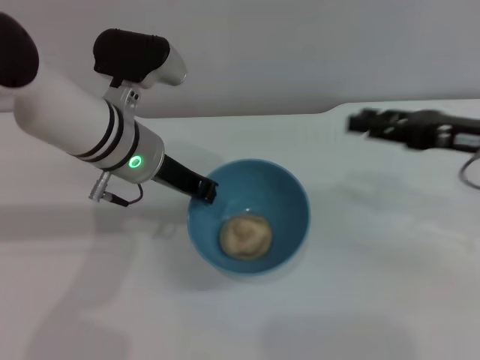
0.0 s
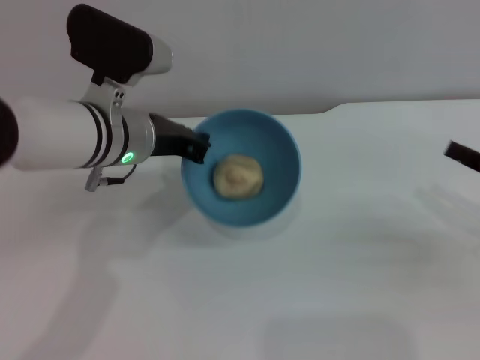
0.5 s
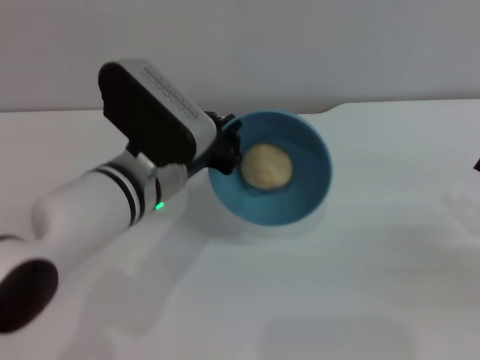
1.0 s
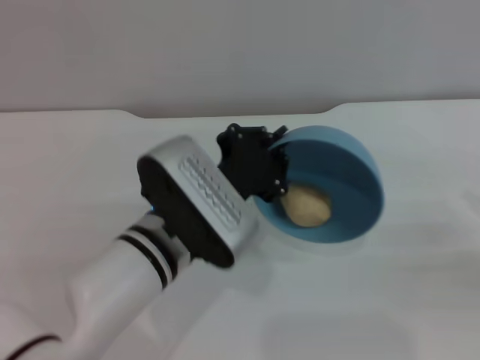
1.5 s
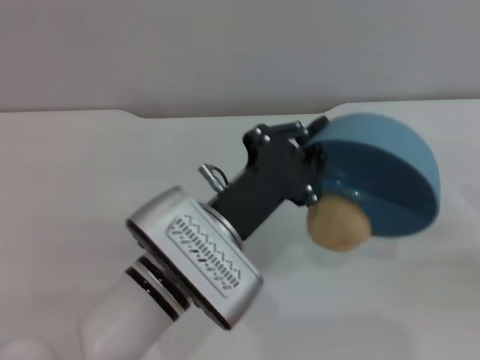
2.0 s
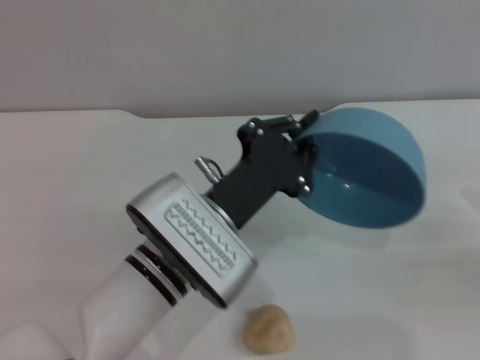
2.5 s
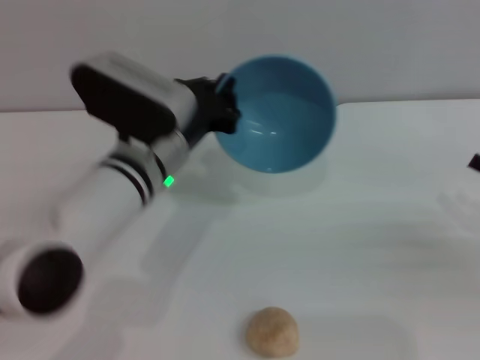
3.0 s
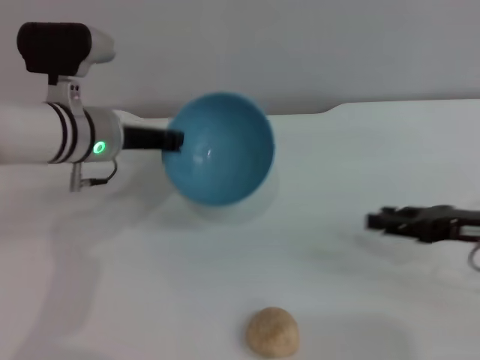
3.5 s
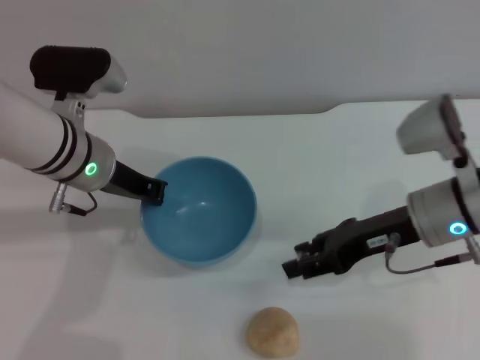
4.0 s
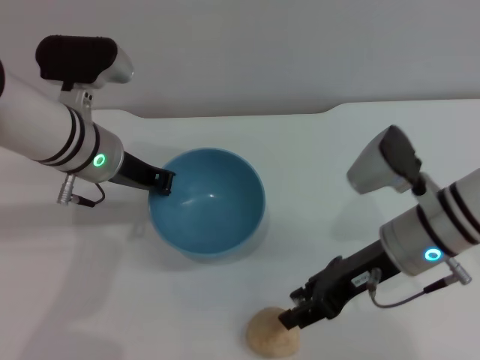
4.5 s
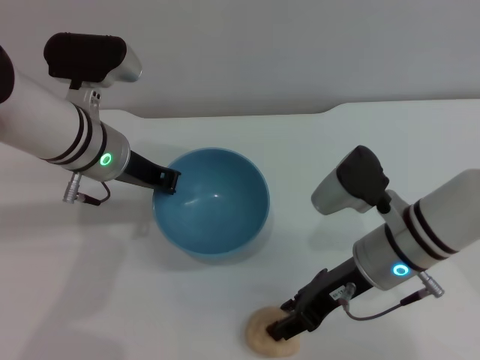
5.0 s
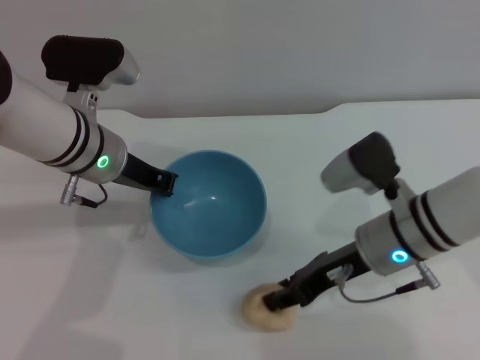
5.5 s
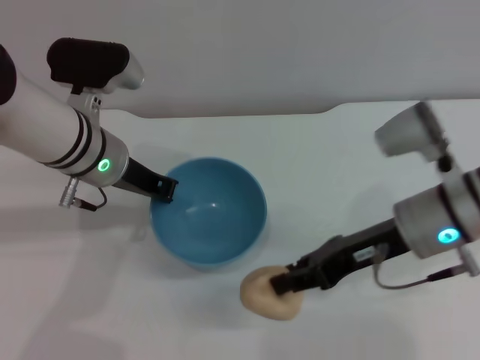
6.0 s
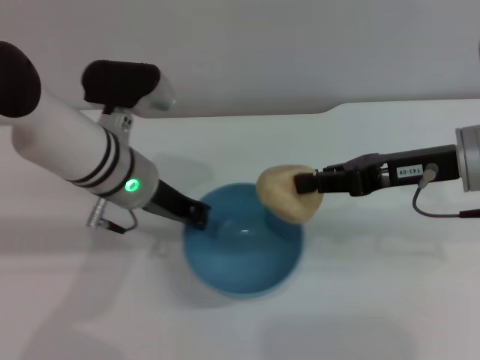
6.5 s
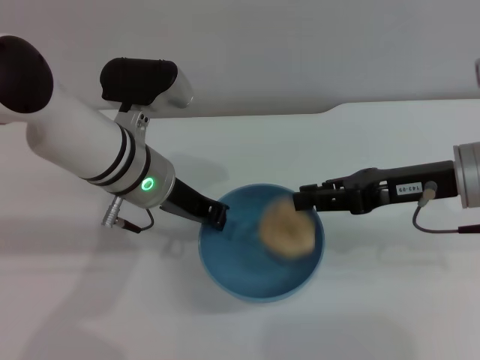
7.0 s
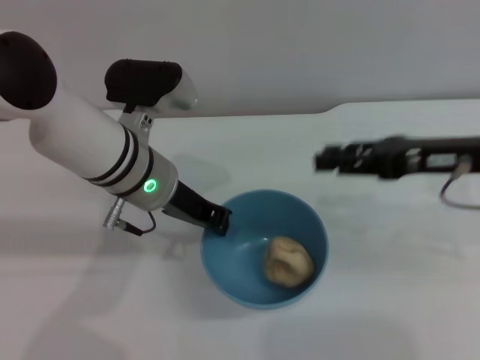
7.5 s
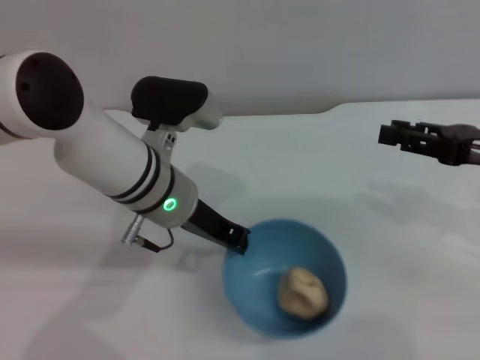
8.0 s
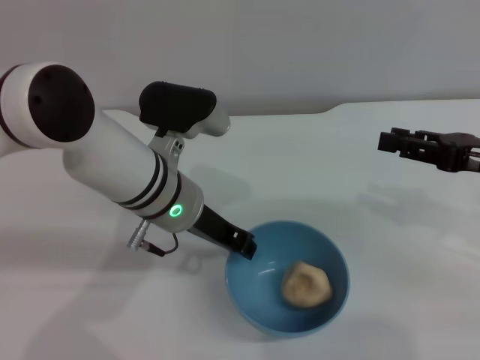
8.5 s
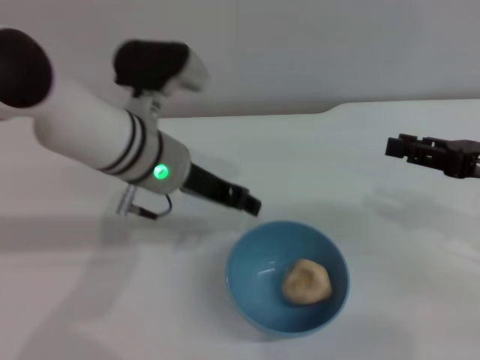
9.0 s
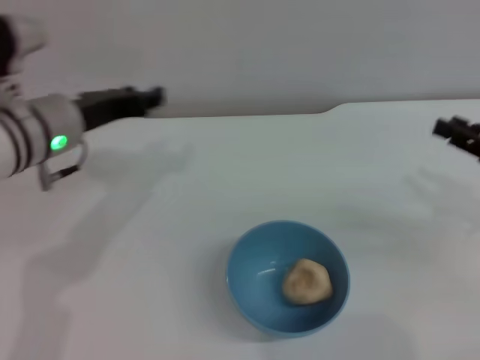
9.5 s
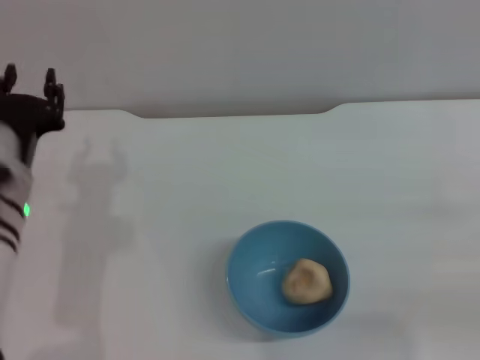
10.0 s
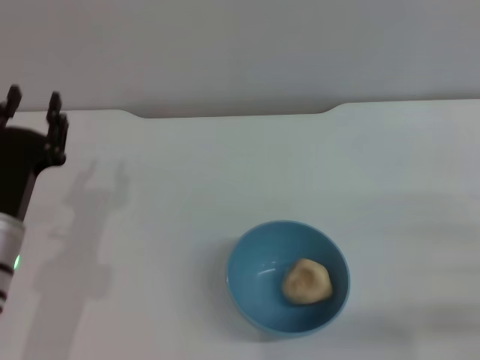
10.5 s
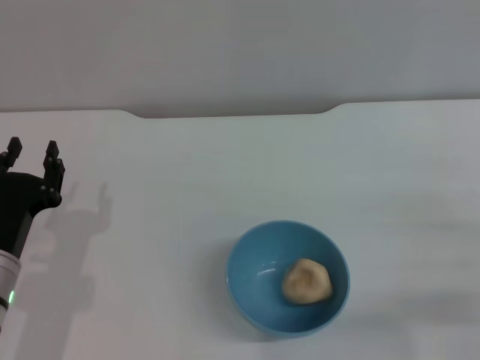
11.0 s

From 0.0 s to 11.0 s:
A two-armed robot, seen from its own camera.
Task of the whole recording: put the egg yolk pastry into the blue bowl and pour it out repeatedly.
Step, from 0.0 s to 2.0 s: Pour the egg yolk pastry out of bowl.
Step, from 3.0 s to 6.0 s: Pick up the egg yolk pastry with the right gripper.
Step, from 6.5 s to 7.5 s: Place the egg yolk pastry into the bowl.
Step, from 8.0 s to 9.0 s: Place the bowl on the table.
From 0.0 s to 2.0 s: The left gripper travels backward and to the right by roughly 15 cm; the right gripper heads to the right, downward and backward, covering approximately 15 cm.
From 2.0 s to 3.5 s: The right gripper goes approximately 10 cm to the left. Meanwhile the left gripper travels forward and to the left by approximately 20 cm.
From 3.5 s to 5.5 s: The right gripper goes roughly 15 cm to the left.
From 5.5 s to 7.5 s: The left gripper ends up about 5 cm from where it was, while the right gripper moves to the right and upward, some 15 cm, and closes, then opens again.
From 7.5 s to 9.0 s: The left gripper opens. Meanwhile the right gripper is displaced to the right by roughly 5 cm.
From 9.0 s to 11.0 s: The right gripper shifts about 15 cm downward and backward. The left gripper shifts some 20 cm to the left, backward and downward.
